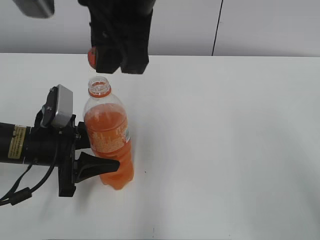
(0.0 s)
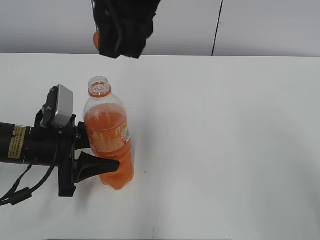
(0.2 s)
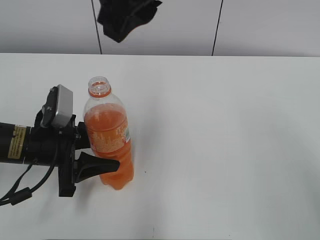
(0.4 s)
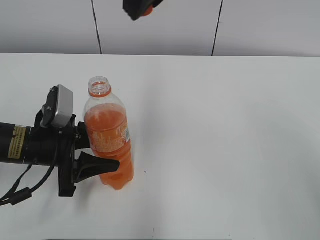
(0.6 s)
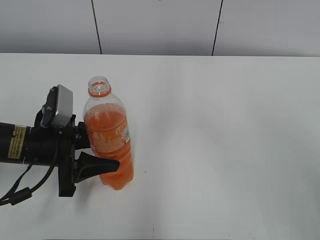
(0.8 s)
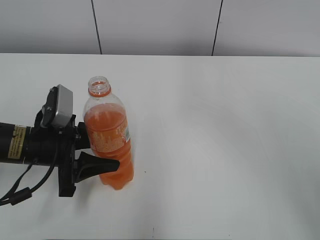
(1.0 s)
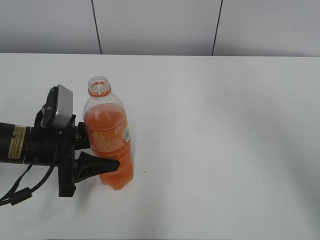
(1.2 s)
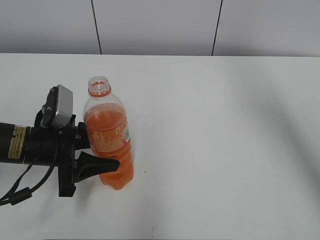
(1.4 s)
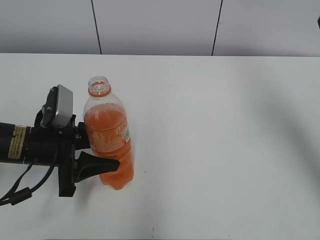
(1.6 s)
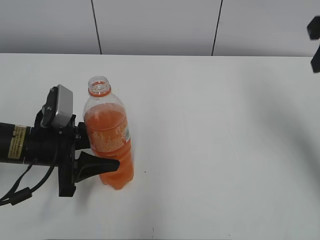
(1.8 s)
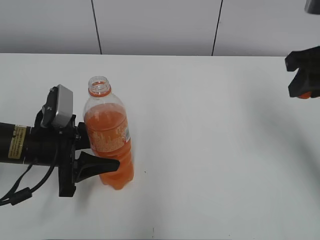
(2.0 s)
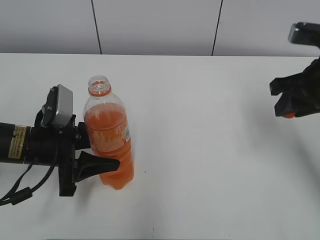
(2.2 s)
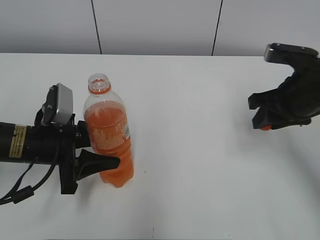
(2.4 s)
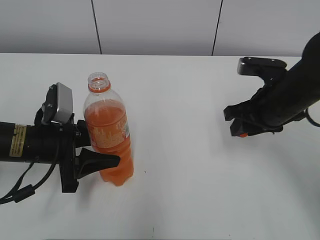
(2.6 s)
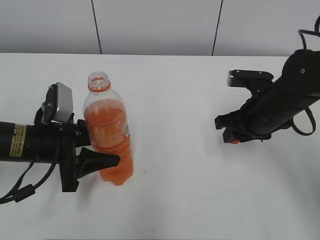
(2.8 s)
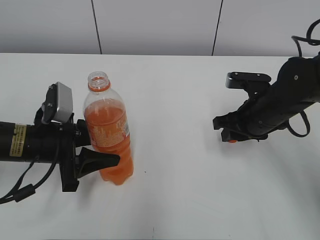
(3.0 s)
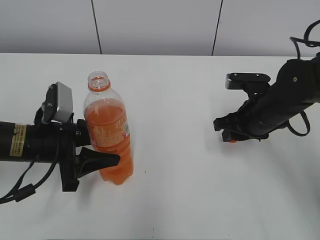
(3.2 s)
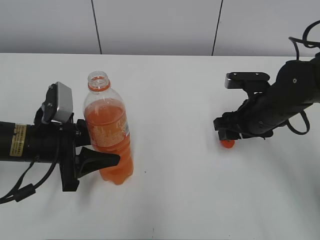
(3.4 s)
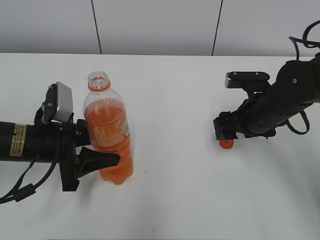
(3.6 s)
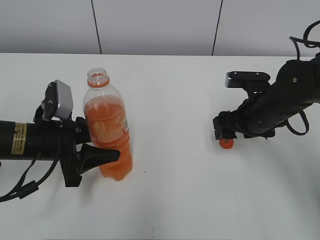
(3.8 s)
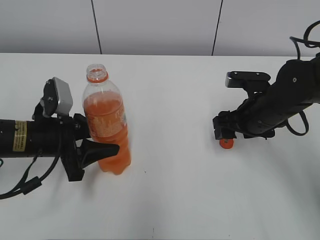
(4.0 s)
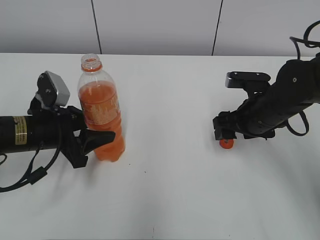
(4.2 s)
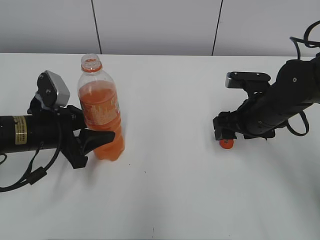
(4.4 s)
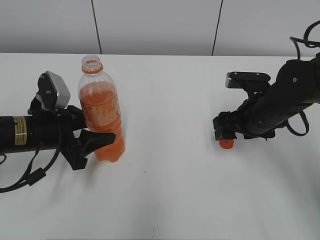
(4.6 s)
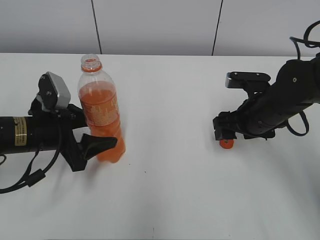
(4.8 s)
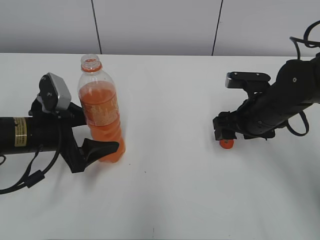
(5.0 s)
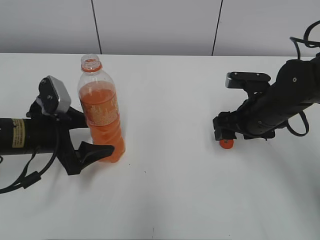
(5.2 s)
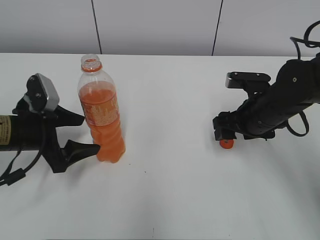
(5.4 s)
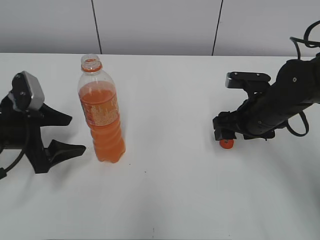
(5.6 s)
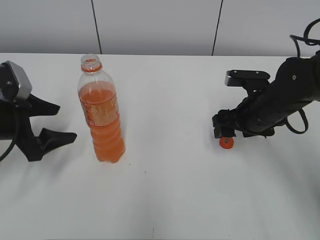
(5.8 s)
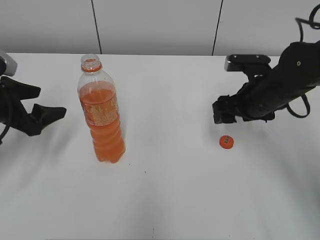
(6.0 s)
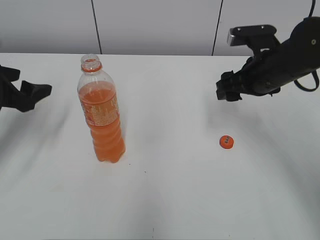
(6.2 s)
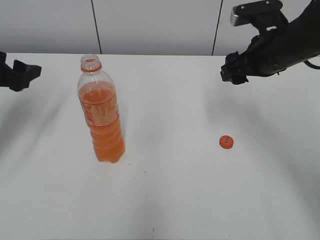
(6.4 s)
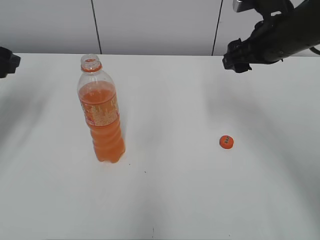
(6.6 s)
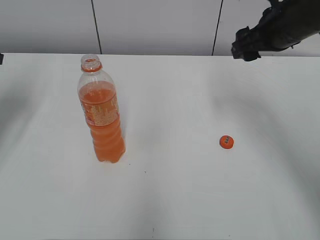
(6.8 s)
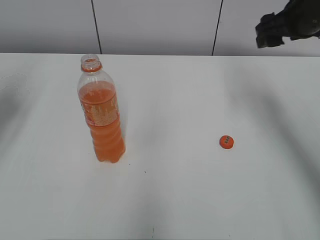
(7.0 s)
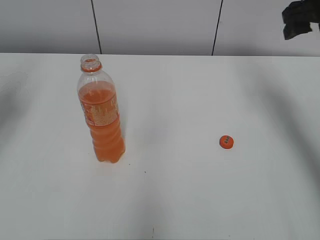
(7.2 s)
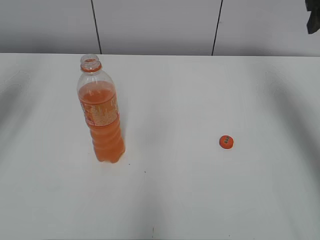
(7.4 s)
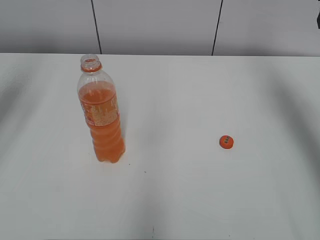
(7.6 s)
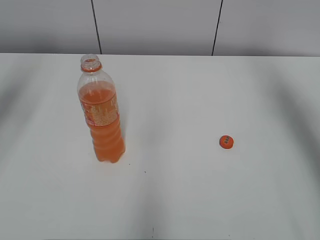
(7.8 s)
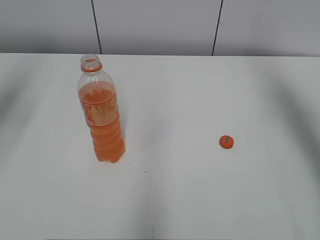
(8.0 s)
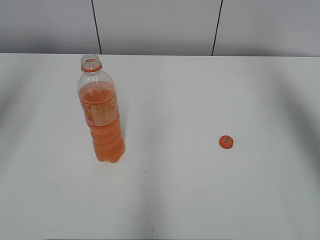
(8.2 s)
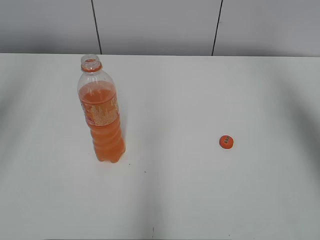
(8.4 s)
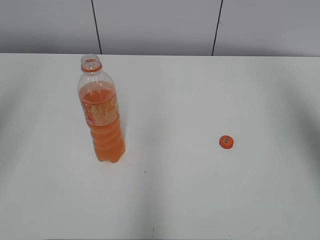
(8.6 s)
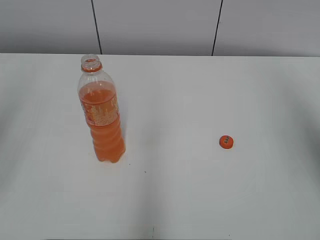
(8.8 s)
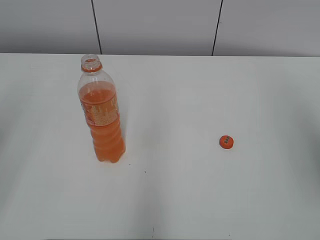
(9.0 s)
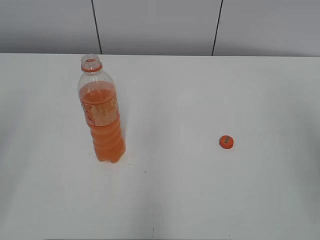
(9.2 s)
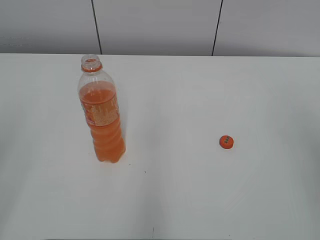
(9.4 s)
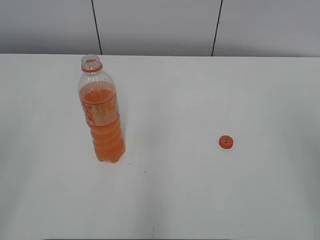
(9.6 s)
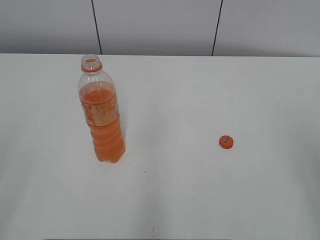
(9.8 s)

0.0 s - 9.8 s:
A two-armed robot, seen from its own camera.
Step, 0.0 s - 3.4 s: Place the bottle cap on the right.
Step, 3.6 s - 4.4 s: Move the Mirinda from right to left.
0.0 s - 1.4 s: The right gripper travels to the right by some 25 cm.
1.4 s - 2.8 s: The right gripper shifts some 30 cm downward.
2.8 s - 4.2 s: The right gripper opens.
4.2 s - 5.6 s: The left gripper opens up.
5.6 s - 7.0 s: The right gripper goes approximately 15 cm upward, while the left gripper heads upward, to the left and forward, covering about 20 cm.
7.0 s - 8.4 s: The right gripper goes roughly 20 cm upward and backward.
8.4 s - 9.8 s: The right gripper goes approximately 25 cm backward and downward.

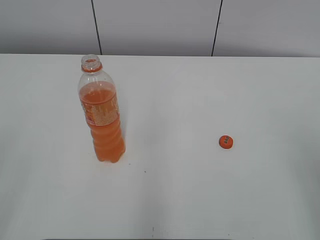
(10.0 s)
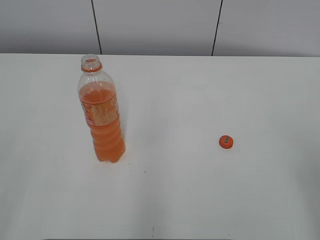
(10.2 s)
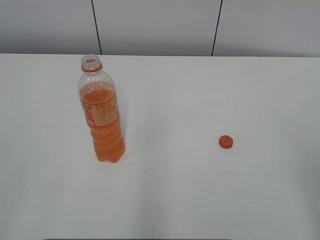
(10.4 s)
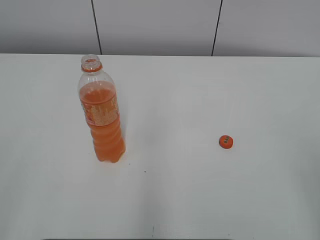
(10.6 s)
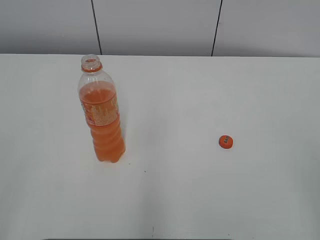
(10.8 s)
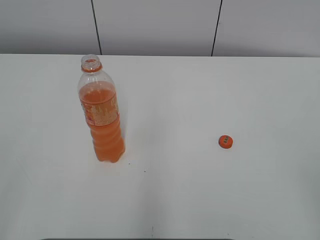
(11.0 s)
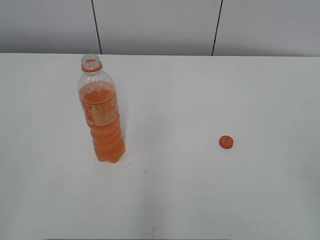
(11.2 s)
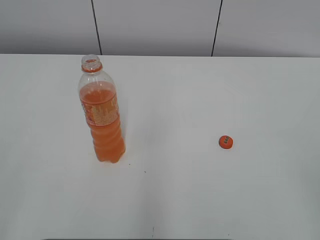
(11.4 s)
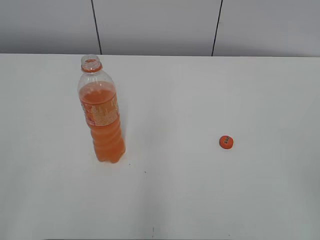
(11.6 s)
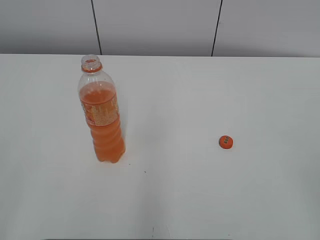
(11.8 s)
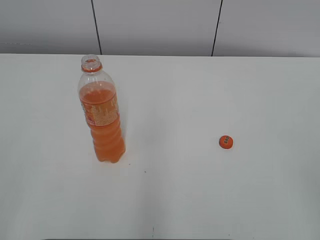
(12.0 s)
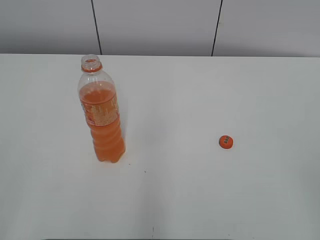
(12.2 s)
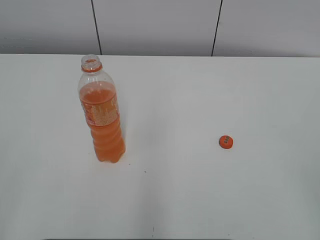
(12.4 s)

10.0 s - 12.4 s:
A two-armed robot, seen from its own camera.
11.2 s - 12.4 s: Both grippers stay put.

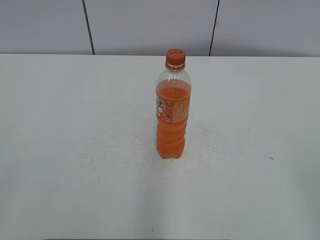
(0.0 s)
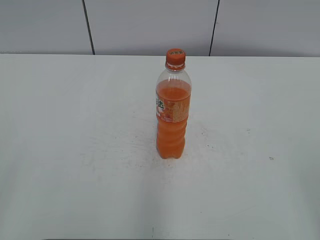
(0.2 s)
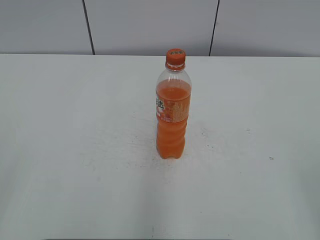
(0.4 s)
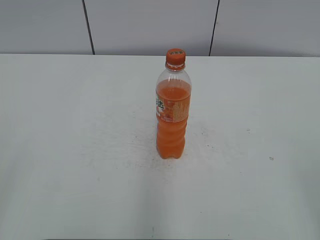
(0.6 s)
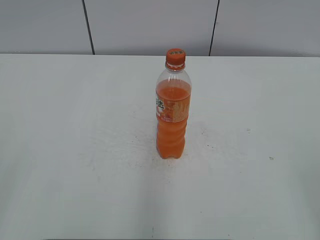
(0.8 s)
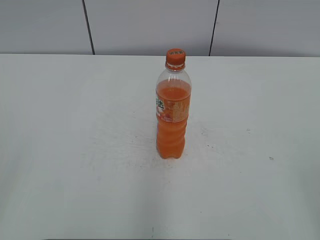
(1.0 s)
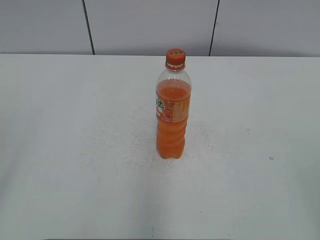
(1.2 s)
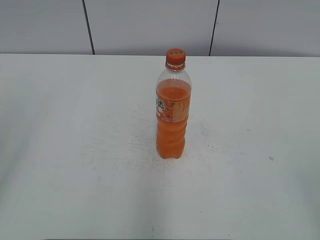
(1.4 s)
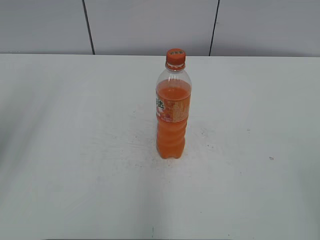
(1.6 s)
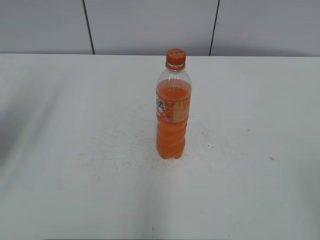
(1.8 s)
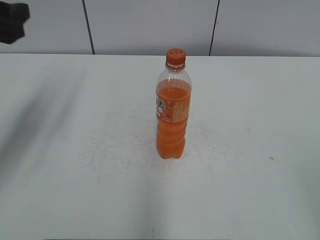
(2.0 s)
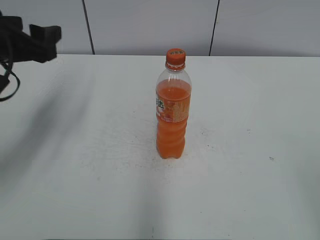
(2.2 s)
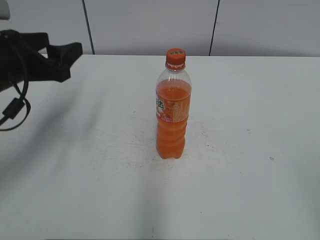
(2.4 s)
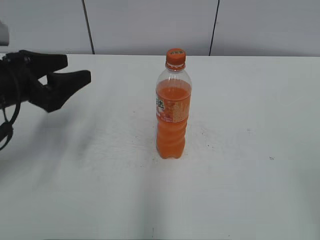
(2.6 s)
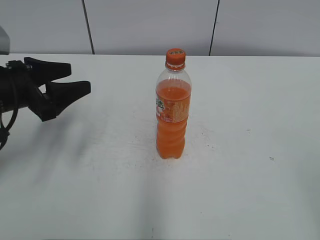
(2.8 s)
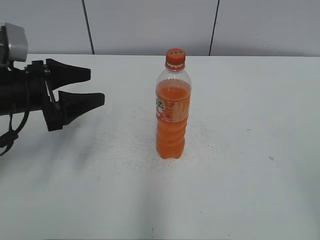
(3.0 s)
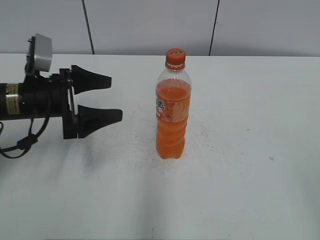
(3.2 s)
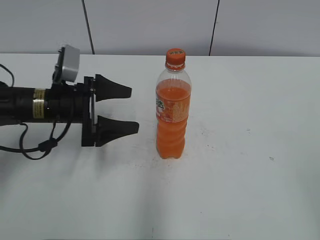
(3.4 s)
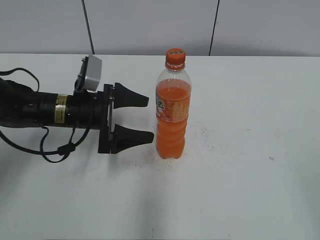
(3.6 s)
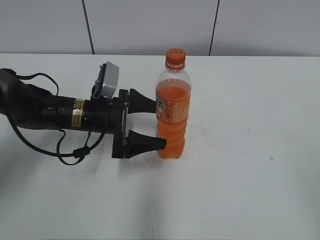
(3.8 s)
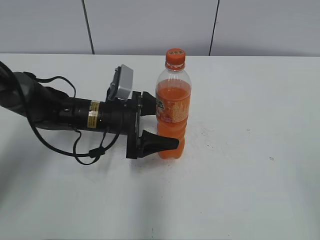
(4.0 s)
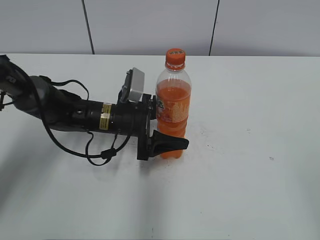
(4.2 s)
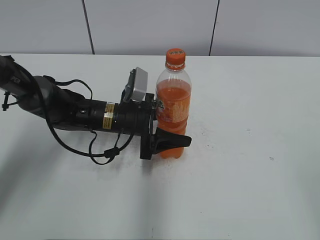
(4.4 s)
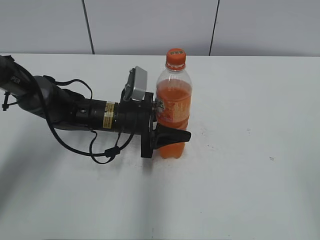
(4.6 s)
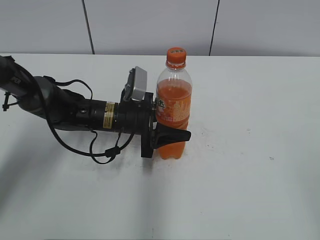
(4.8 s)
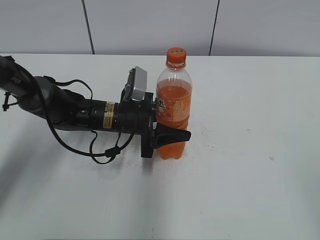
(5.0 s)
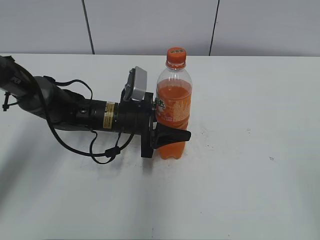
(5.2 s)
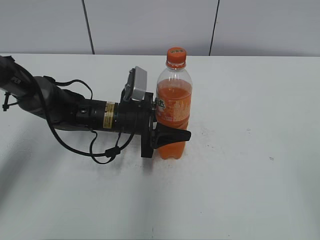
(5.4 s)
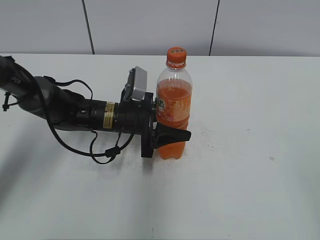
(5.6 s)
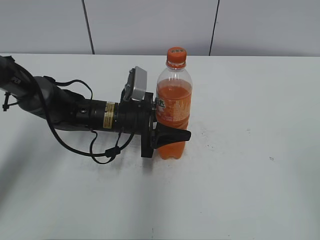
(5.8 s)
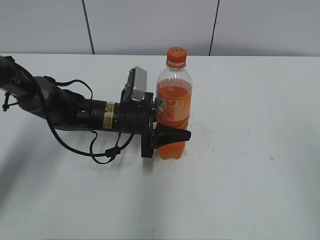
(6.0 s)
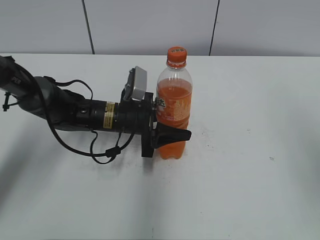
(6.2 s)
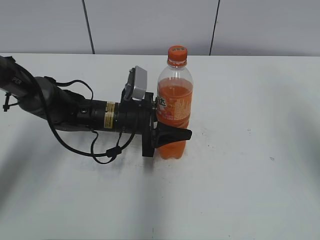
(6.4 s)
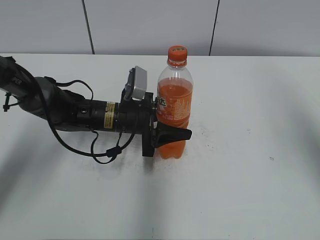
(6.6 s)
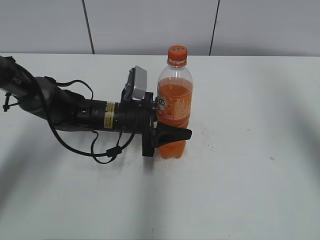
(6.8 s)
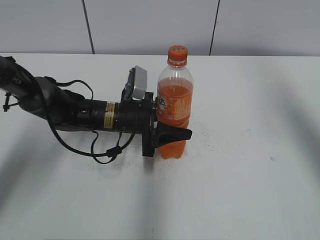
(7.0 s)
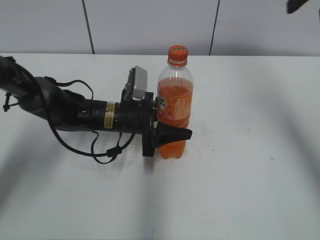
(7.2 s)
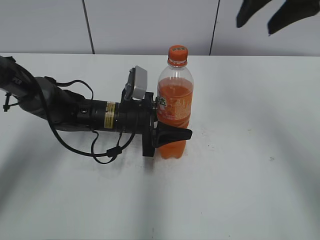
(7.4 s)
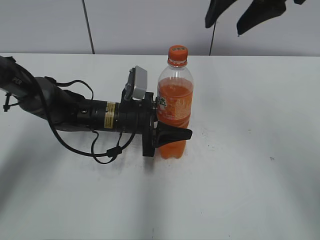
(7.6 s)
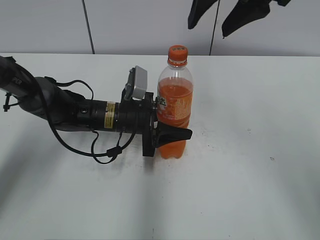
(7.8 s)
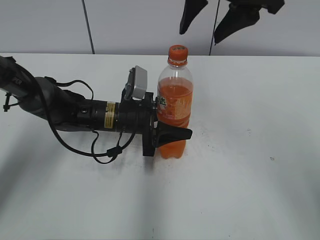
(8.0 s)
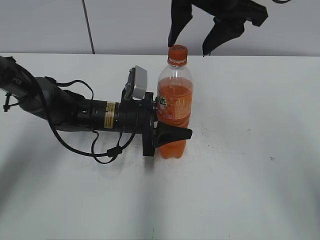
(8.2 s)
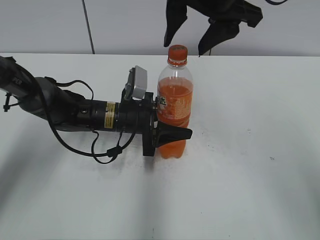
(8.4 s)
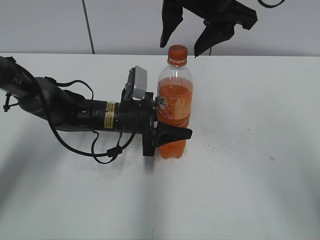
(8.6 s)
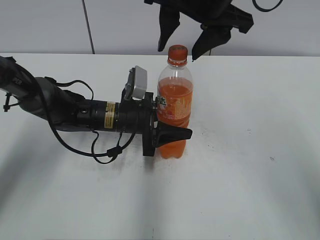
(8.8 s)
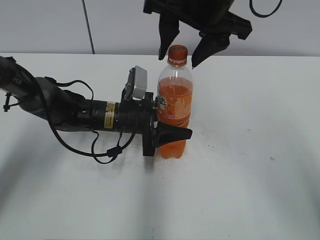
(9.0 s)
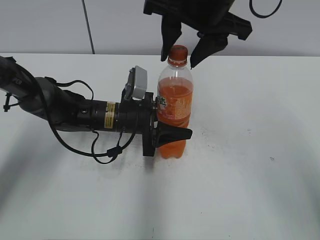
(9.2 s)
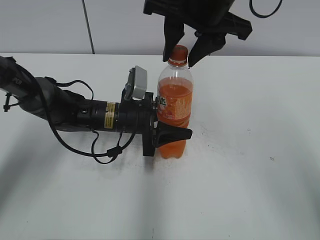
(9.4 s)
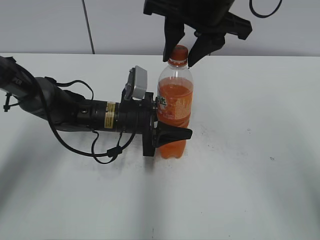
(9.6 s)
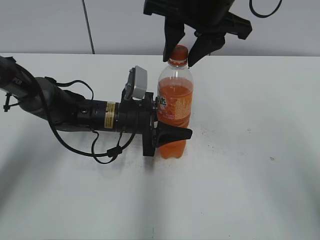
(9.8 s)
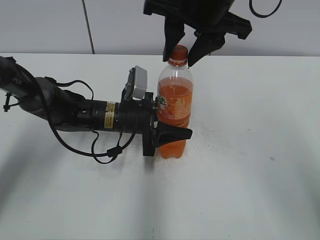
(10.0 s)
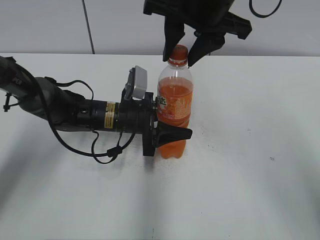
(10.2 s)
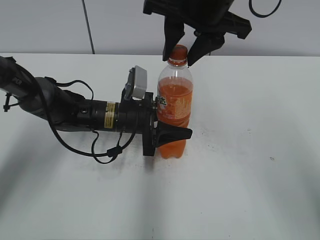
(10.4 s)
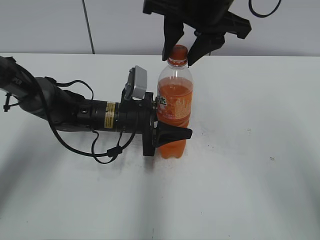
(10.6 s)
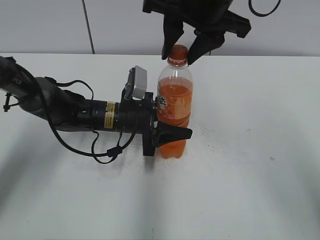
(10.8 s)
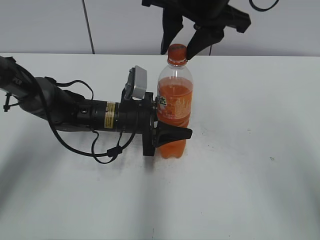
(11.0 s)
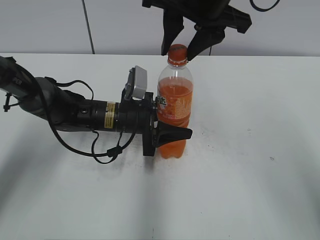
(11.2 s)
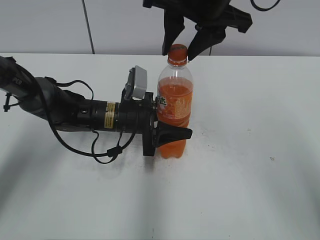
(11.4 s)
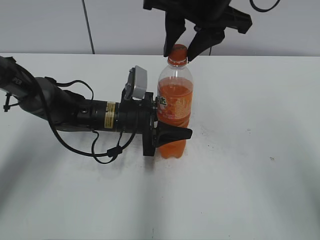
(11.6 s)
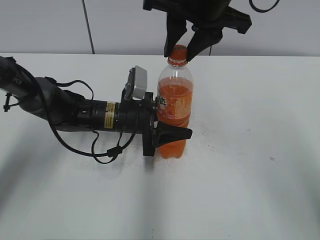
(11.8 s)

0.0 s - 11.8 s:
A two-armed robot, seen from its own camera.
Step, 0.0 s - 5.0 s: Grab the Mirinda with the left hand.
1.4 s - 3.0 s: The left gripper heads forward and downward, covering roughly 30 cm.
3.0 s - 4.4 s: The left gripper heads to the right and downward, covering about 20 cm, and opens and closes again.
4.4 s - 6.0 s: The left gripper closes its fingers. Meanwhile the right gripper moves some 5 cm.
6.0 s - 7.4 s: The right gripper shifts about 30 cm forward.
7.4 s - 8.8 s: The right gripper travels to the left by approximately 10 cm.
8.8 s - 10.4 s: The right gripper closes its fingers.
10.4 s - 11.8 s: The two grippers keep their place.
